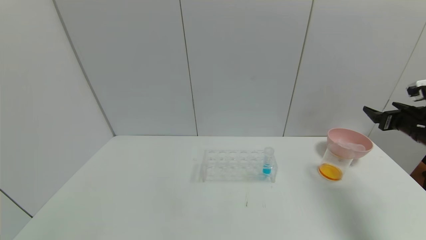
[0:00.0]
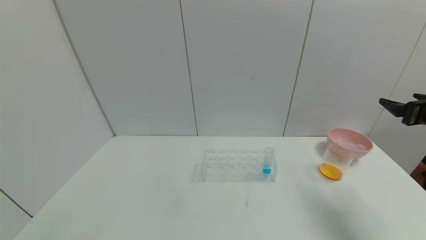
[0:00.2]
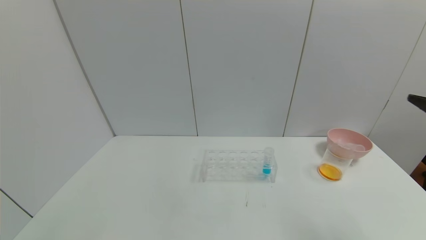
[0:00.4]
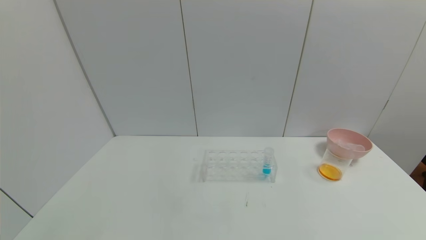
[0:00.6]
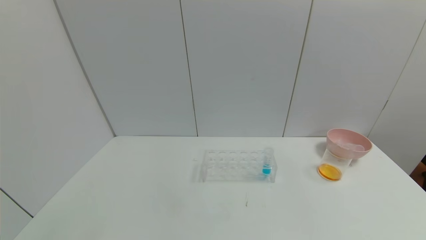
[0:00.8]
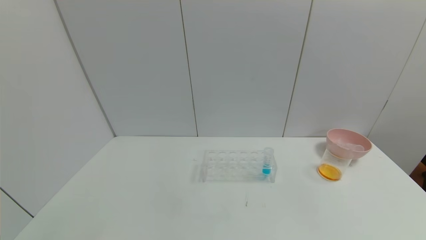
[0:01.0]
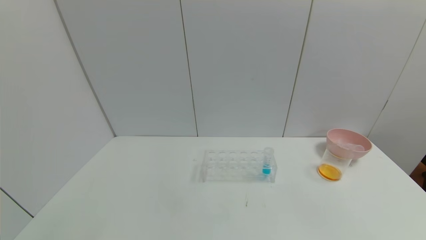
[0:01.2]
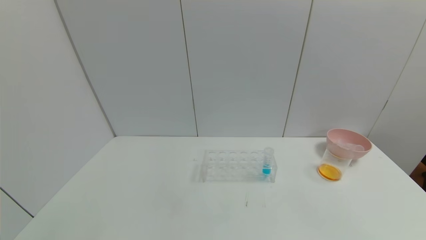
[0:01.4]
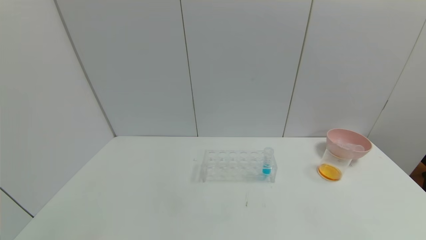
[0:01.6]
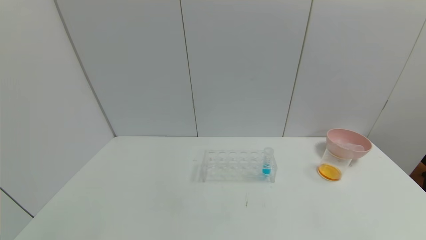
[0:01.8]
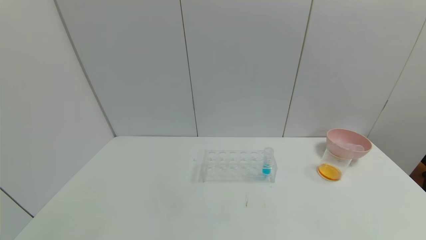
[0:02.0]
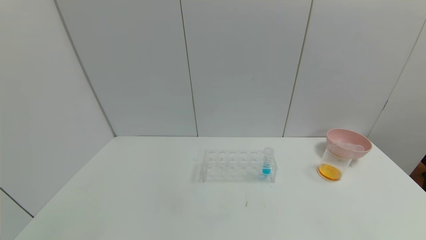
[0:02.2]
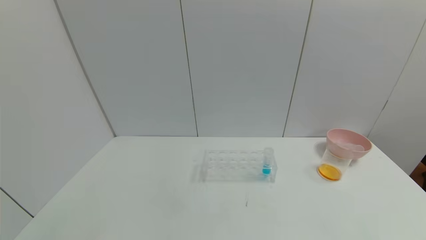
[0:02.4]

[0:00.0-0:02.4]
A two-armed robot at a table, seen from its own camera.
Task of the whole recording: pick up the test tube with yellow pigment and the test tube with red pigment by grippers and pour them into the beaker.
0:00.0 to 0:01.2: The right gripper heads backward, covering some 35 cm.

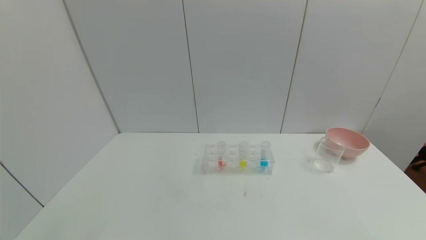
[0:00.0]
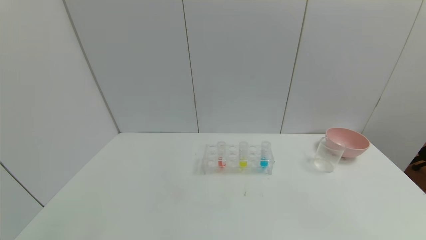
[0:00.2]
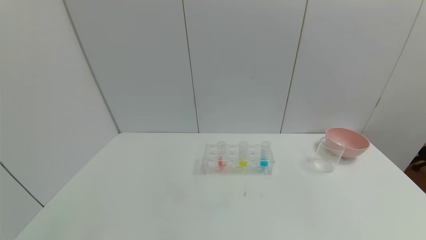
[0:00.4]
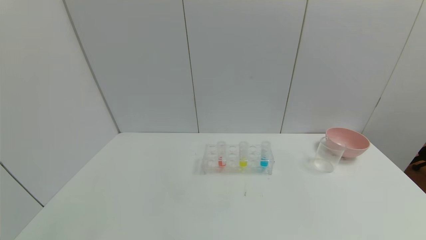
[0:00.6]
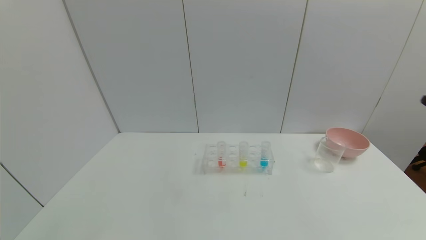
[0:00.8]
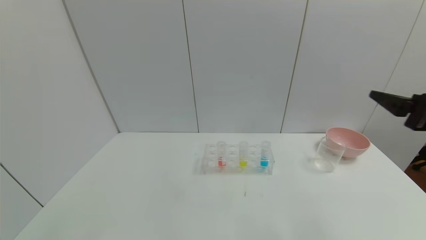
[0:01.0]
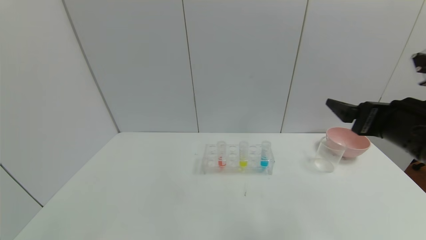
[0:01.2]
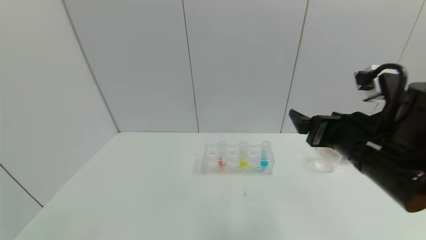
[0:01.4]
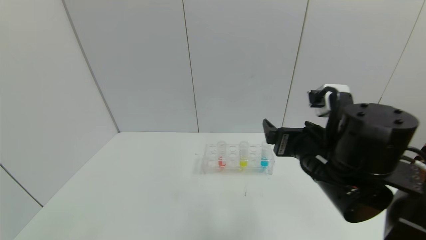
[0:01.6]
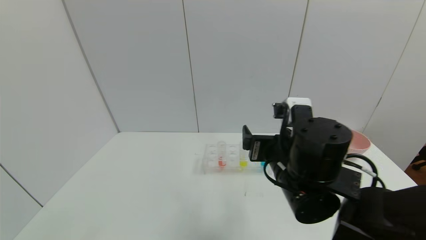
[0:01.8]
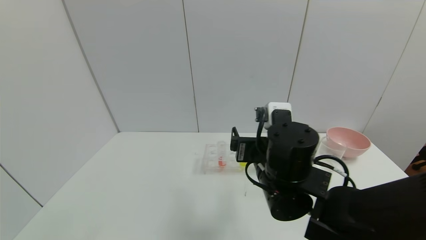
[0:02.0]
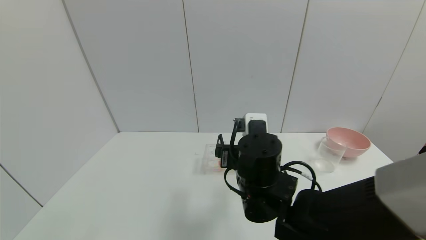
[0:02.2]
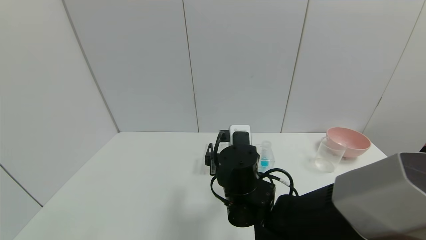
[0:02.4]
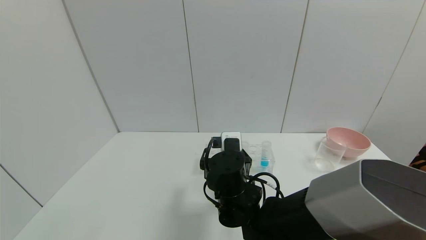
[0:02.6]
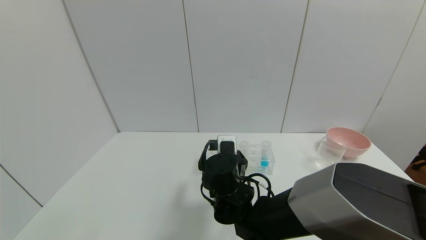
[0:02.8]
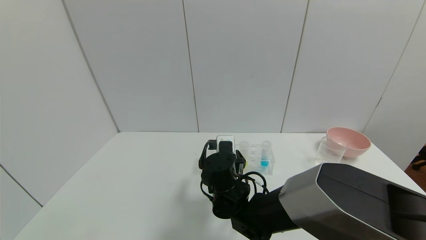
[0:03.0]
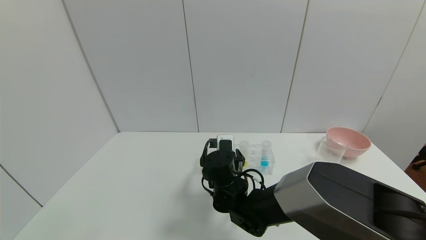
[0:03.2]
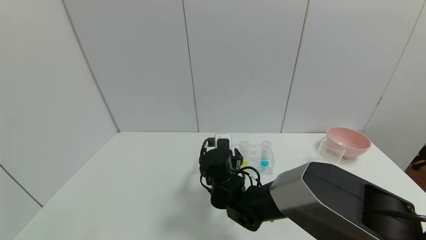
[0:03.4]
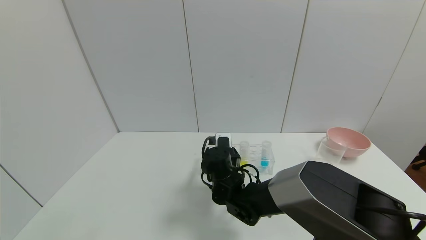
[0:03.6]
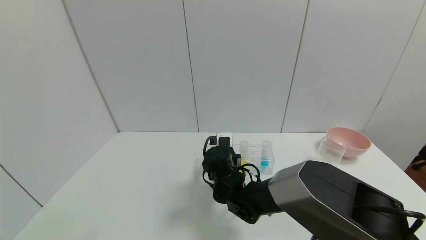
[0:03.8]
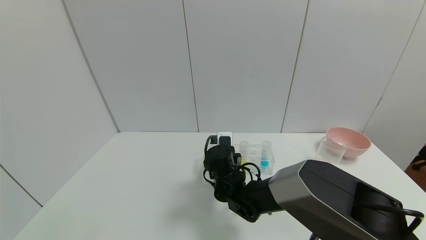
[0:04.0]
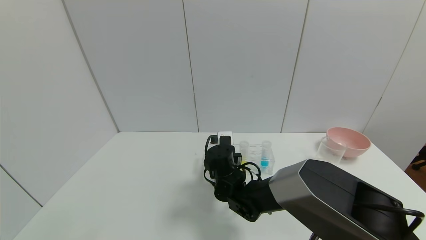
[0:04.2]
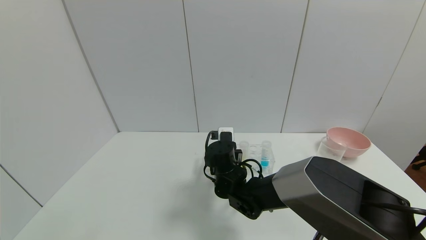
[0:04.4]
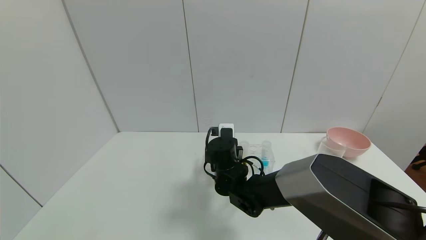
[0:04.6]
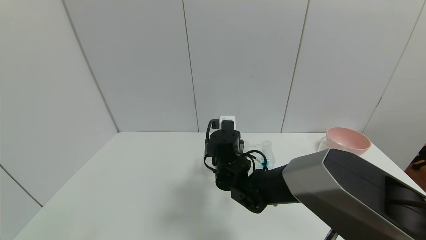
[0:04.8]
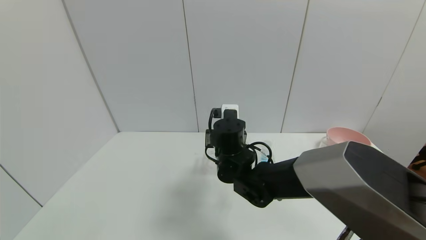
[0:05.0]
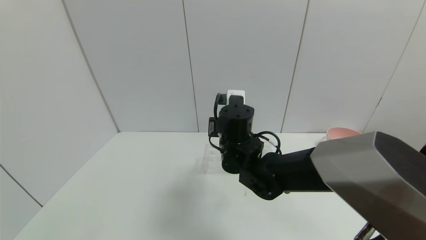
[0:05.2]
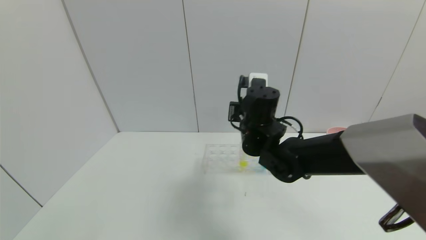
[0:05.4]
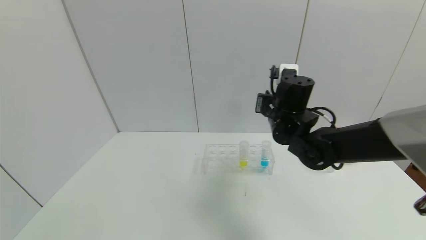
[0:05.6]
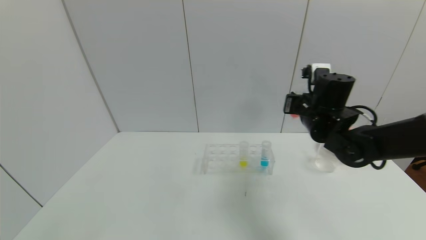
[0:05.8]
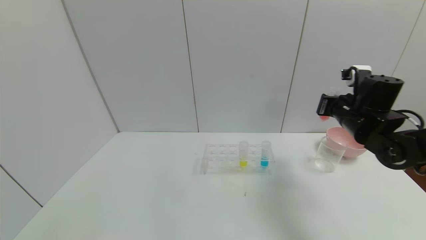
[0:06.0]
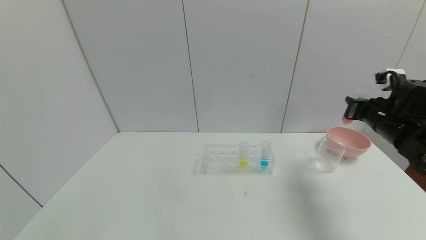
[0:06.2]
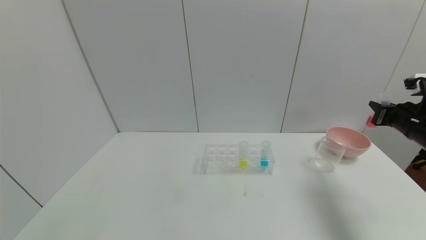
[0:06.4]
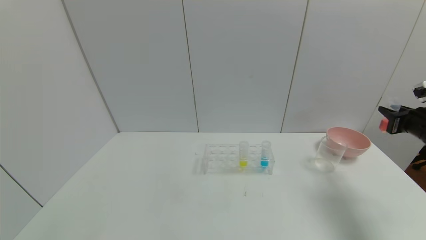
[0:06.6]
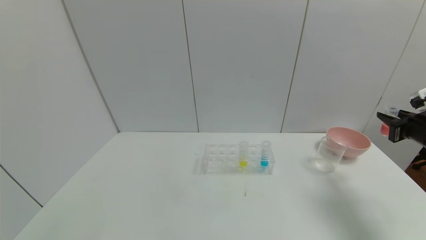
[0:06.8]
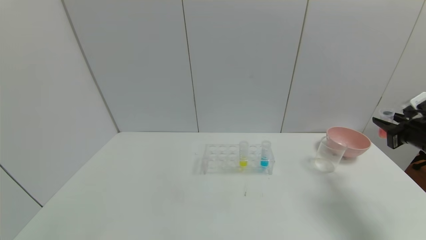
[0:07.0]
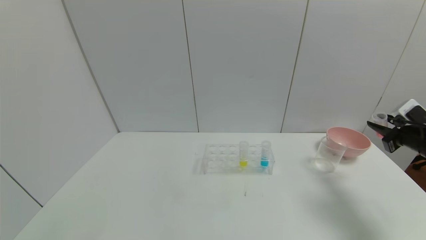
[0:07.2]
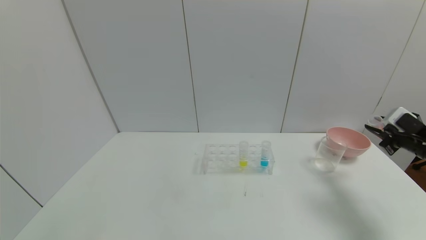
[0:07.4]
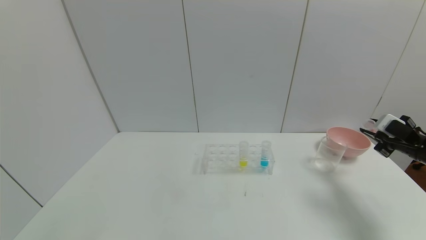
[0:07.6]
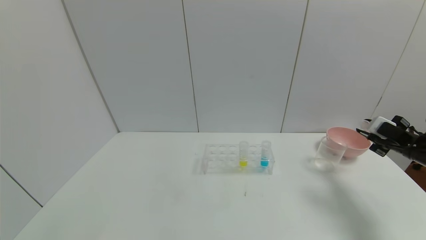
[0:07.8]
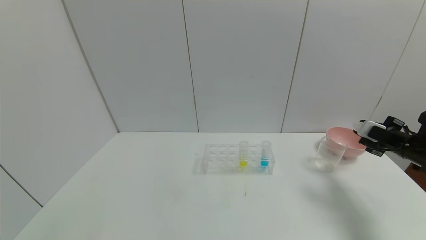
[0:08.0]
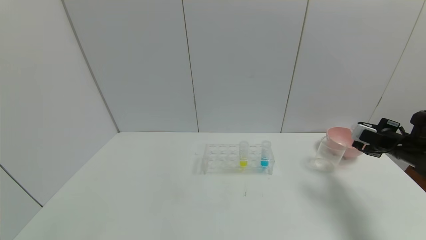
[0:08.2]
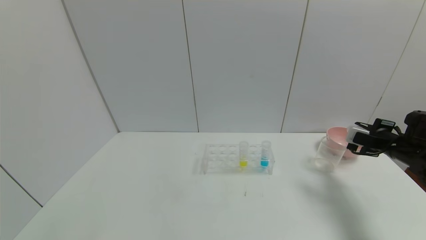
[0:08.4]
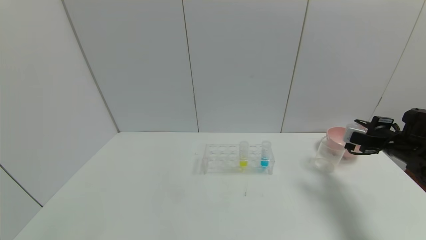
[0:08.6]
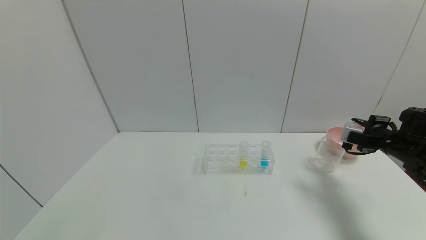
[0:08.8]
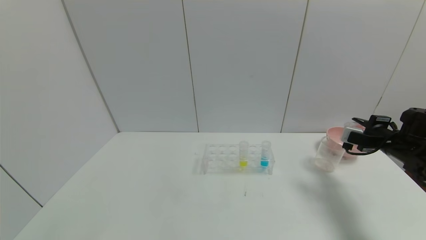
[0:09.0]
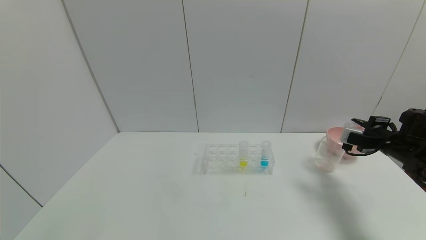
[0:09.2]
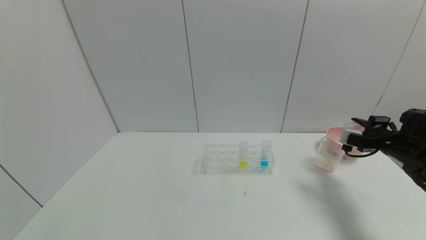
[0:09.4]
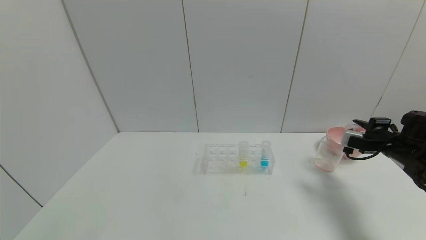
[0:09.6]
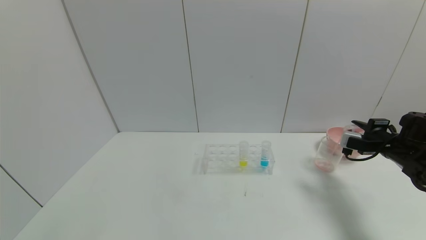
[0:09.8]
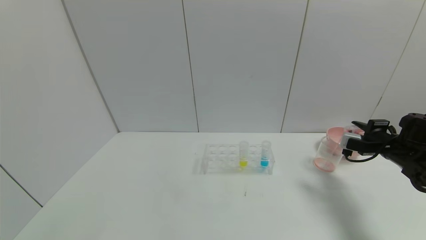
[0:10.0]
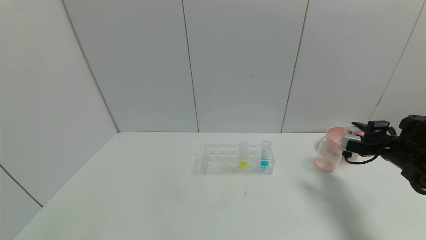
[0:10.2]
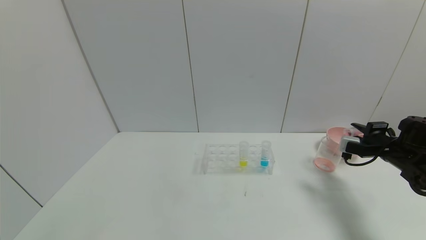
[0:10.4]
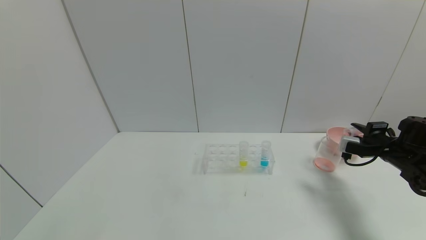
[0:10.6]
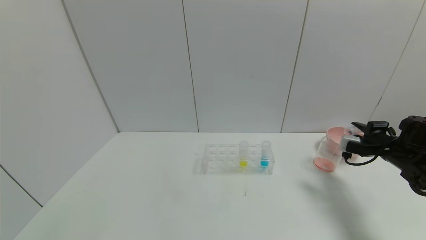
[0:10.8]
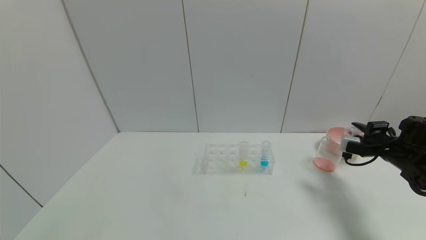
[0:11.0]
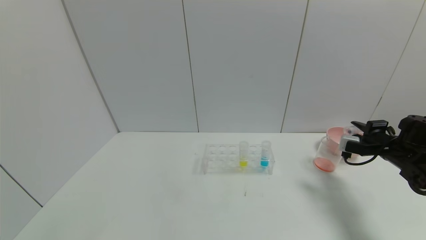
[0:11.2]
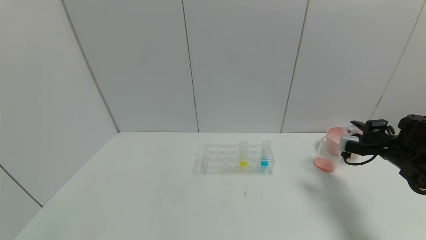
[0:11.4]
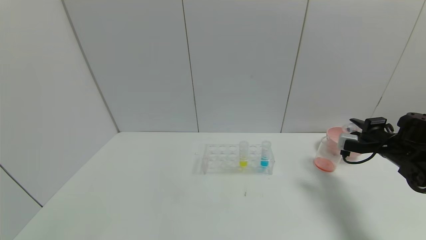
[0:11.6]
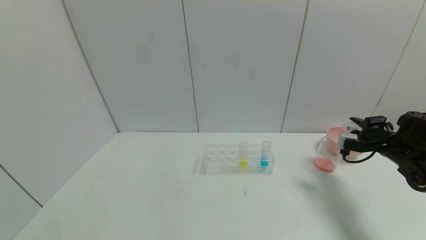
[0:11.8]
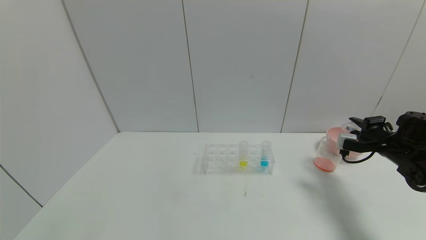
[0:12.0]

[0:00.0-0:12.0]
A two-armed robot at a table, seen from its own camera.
Task of the whole recording: pick up the test tube with yellow pigment and the test tube with red pigment by grippers and pour them into the beaker.
Step, 0:00.0 to 0:04.0: Grasp the red reagent with the right gripper.
Step, 0:04.2 to 0:11.6: Pour the red reagent into the graduated cylinder with the right gripper.
0:00.0 to 0:01.6: The right gripper travels to the left by roughly 20 cm.
0:01.6 to 0:03.0: The right gripper shifts about 25 cm to the left, downward and forward.
0:03.0 to 0:04.4: The right gripper closes up.
0:04.4 to 0:06.0: The right gripper is displaced to the right and upward by about 35 cm.
0:06.0 to 0:07.6: The right gripper goes some 15 cm to the right.
0:09.0 to 0:12.0: The grippers move only a little.

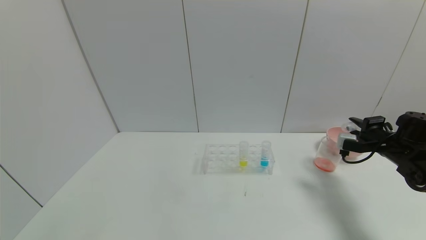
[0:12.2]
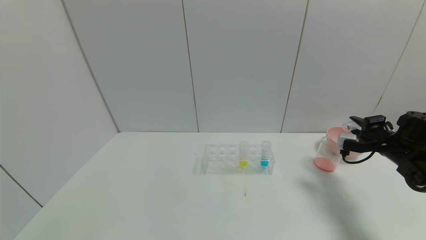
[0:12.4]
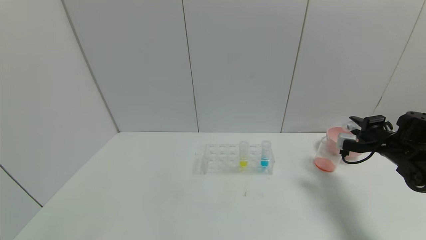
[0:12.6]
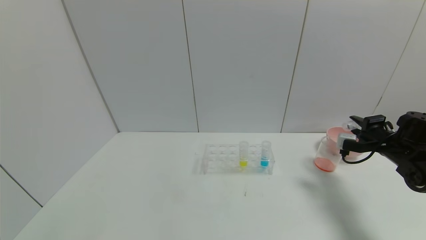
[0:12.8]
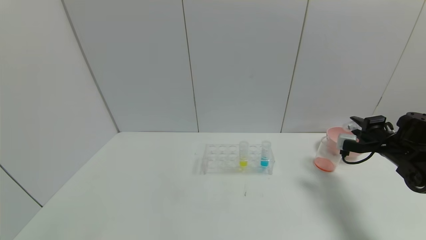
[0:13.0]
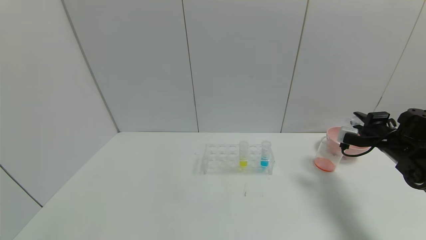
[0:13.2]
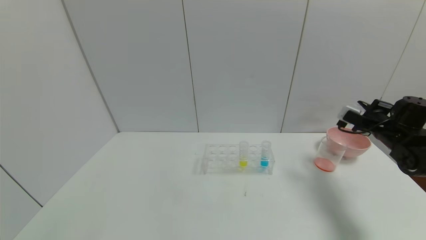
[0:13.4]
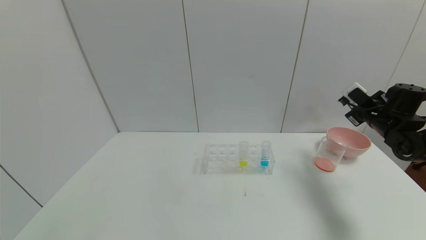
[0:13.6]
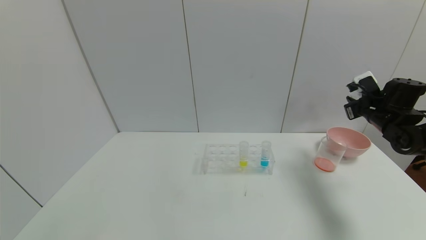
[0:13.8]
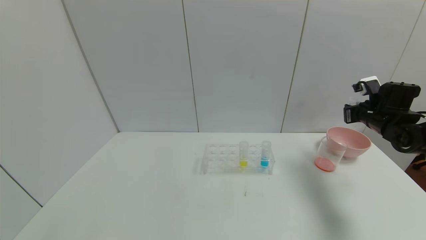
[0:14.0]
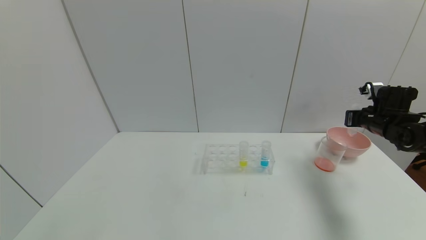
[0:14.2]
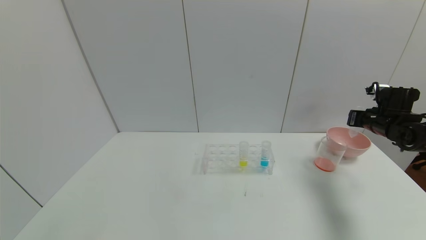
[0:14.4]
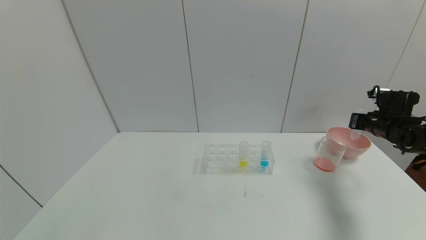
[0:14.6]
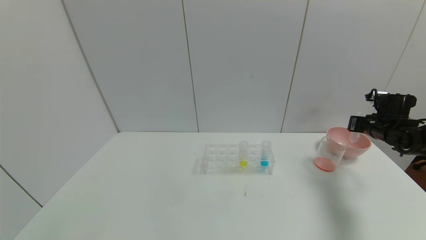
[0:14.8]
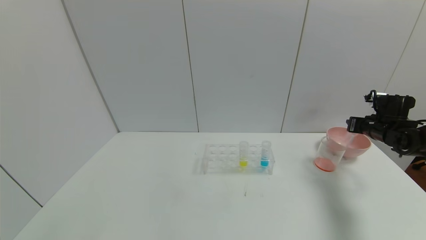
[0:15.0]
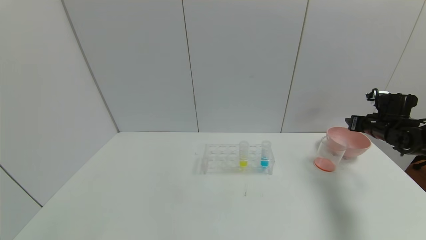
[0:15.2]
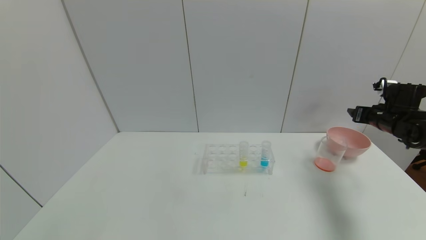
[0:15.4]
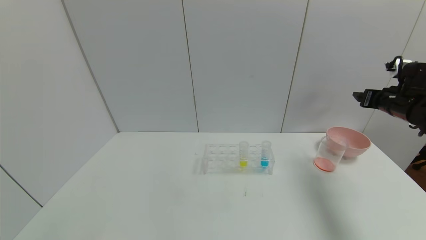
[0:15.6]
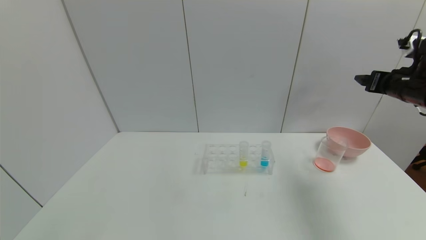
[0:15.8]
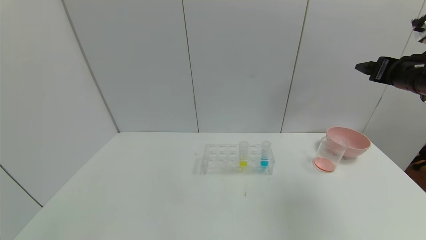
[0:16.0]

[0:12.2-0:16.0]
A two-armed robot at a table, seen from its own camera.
Task of the whole recording: pick up the test tube with yellow pigment and the test tube with red pigment by grippers and pour them into the beaker.
Step, 0:12.2 to 0:15.2: Place the test tube into the bowl with the right gripper.
0:14.8 to 0:16.0: The right gripper is displaced upward, backward and to the left by some 20 cm, and opens its fingers.
